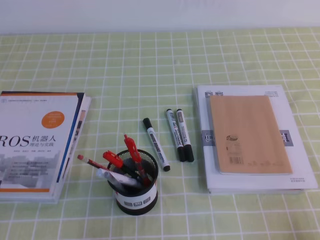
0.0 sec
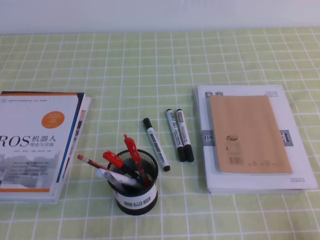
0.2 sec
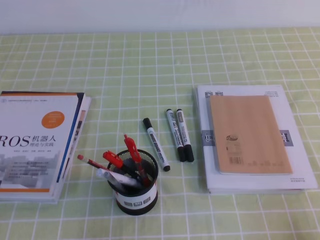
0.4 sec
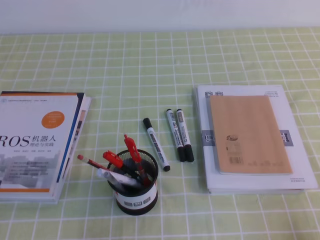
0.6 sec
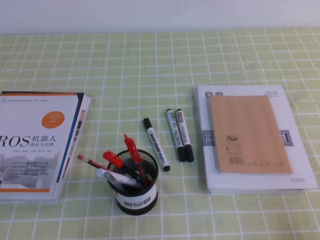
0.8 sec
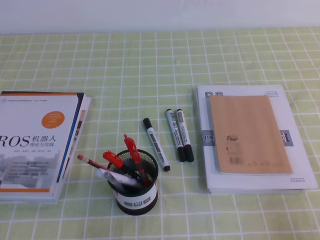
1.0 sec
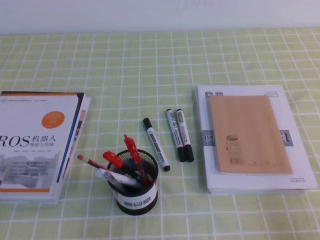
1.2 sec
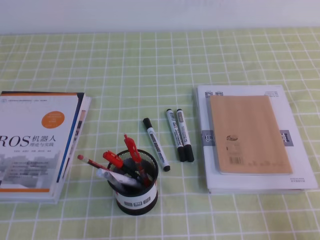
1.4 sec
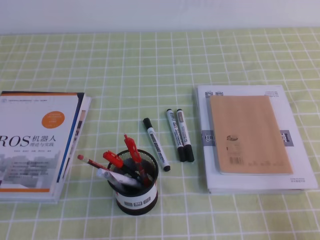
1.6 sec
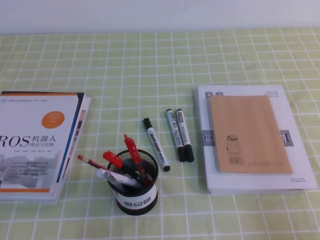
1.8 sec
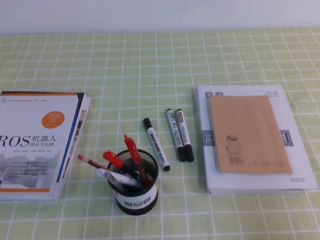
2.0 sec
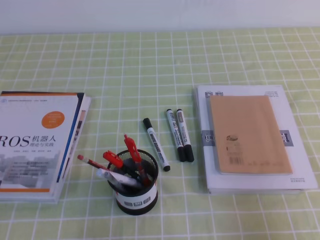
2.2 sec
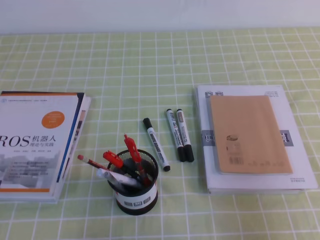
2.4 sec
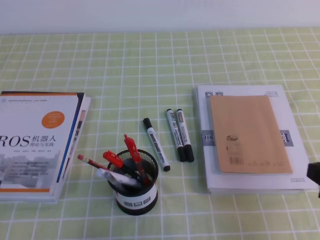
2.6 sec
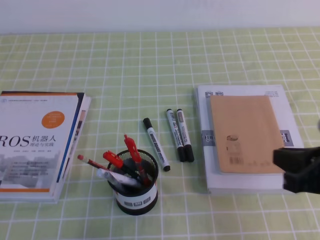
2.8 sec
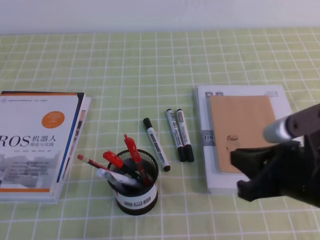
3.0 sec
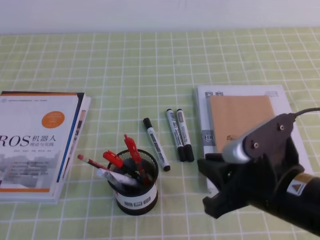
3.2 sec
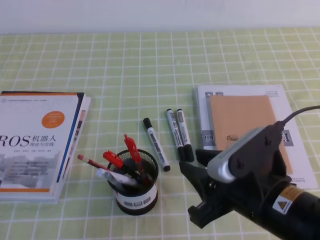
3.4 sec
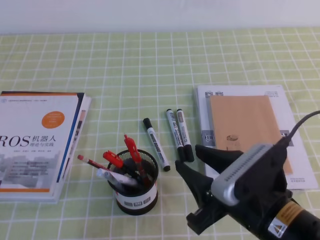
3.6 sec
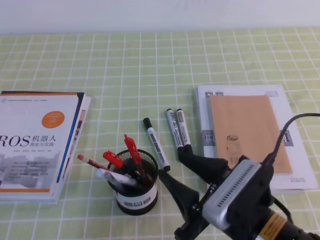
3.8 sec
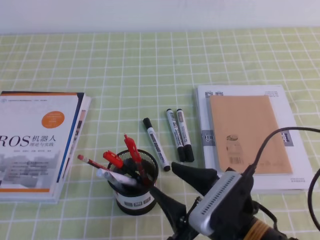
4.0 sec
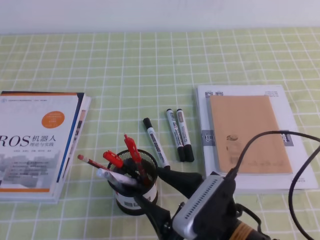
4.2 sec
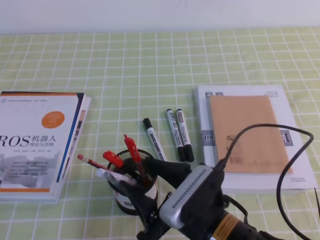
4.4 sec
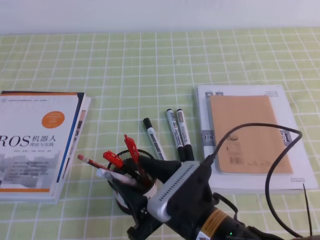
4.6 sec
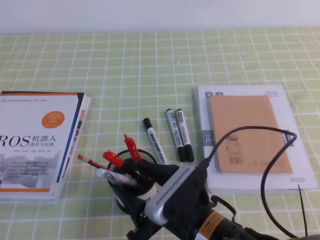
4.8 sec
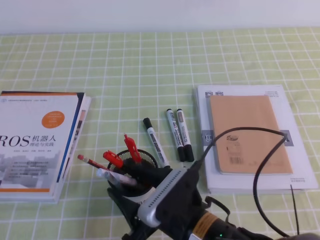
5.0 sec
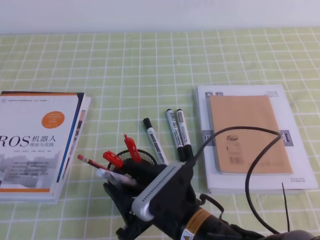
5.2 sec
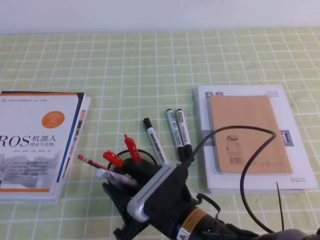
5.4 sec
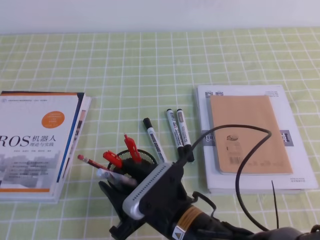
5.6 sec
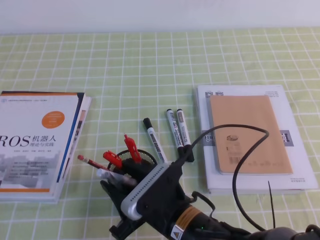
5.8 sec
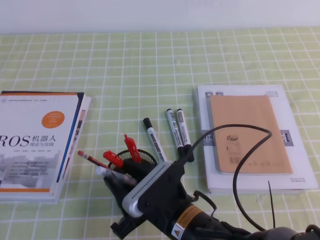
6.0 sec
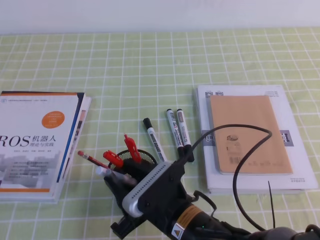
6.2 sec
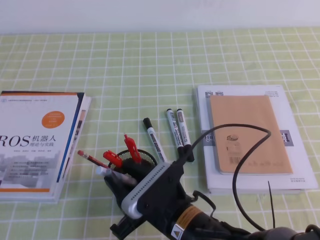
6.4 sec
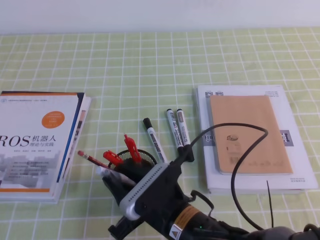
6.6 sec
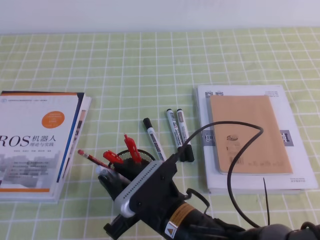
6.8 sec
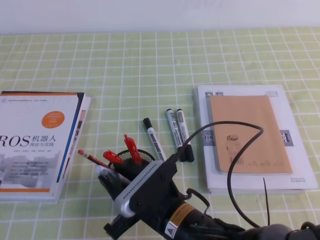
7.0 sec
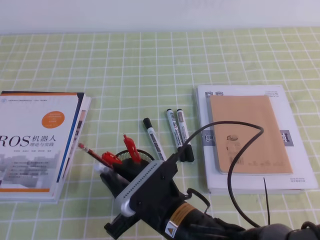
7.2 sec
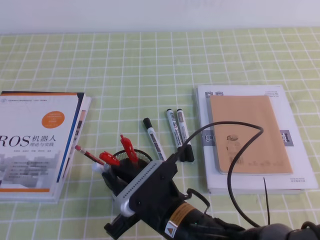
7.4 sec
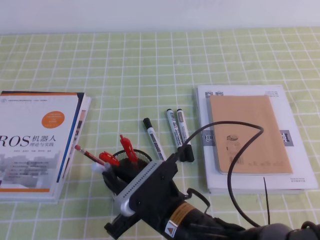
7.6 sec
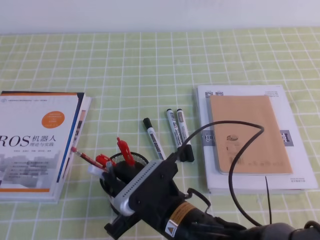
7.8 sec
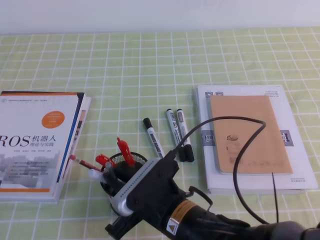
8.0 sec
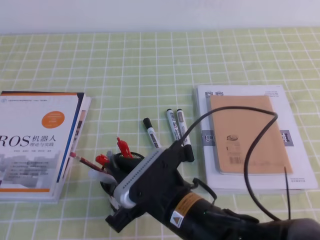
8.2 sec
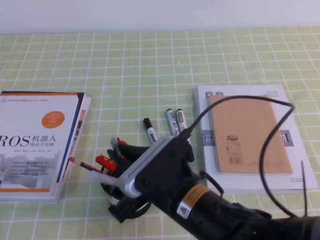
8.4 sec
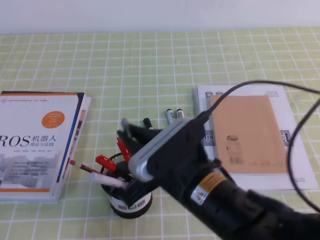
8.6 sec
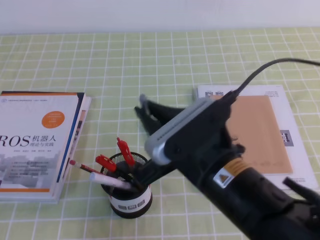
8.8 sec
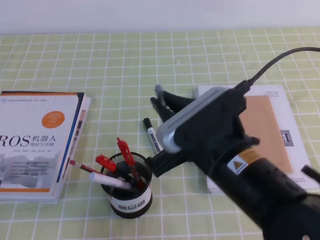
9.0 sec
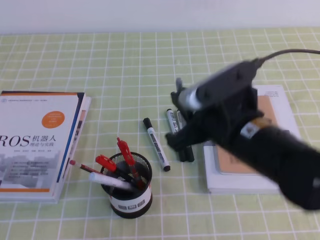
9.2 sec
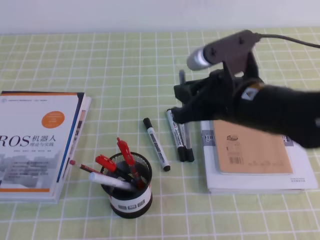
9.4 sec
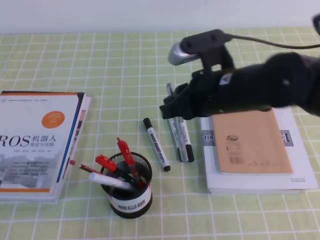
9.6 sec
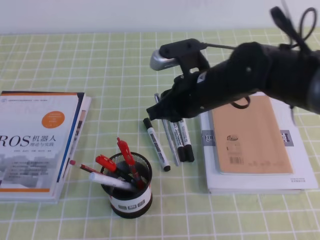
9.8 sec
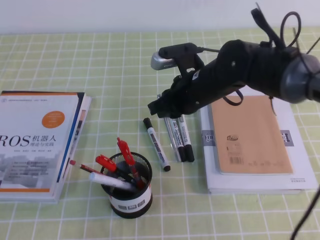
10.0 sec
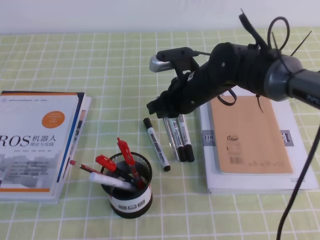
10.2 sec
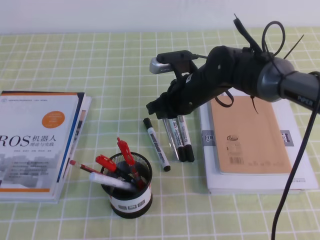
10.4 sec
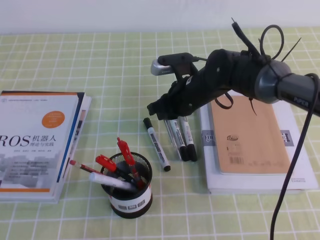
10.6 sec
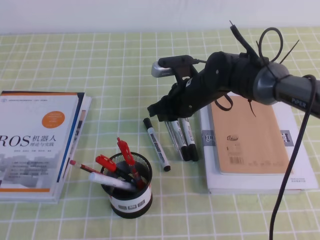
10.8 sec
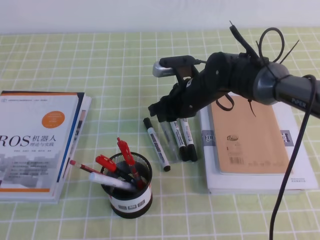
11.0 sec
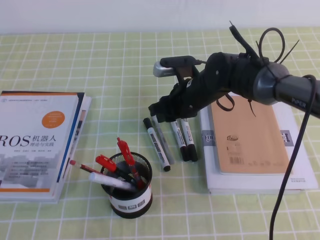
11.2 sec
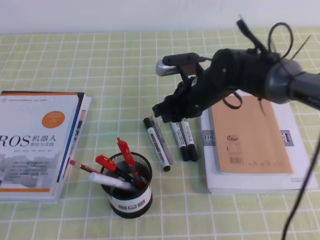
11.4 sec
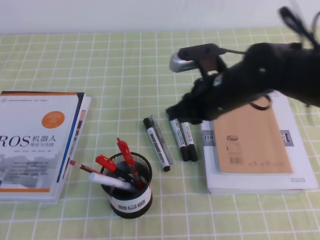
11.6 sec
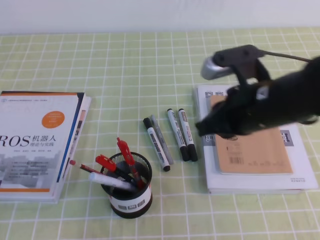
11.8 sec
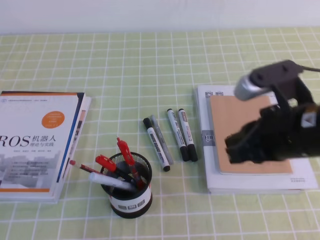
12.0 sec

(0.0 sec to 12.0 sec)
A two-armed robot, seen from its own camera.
1.6 sec - 3.0 sec: The right gripper heads to the left, forward and upward, covering some 20 cm.
3.0 sec - 4.4 sec: The right gripper is displaced to the left and downward by some 15 cm, and opens.
4.4 sec - 6.0 sec: The right gripper moves approximately 5 cm.
6.0 sec - 7.6 sec: The right gripper closes up.
7.6 sec - 9.0 sec: The right gripper shifts about 15 cm upward and to the right.
9.0 sec - 10.4 sec: The right gripper goes approximately 20 cm forward.
10.4 sec - 12.0 sec: The right gripper heads backward, to the right and upward, covering about 20 cm, and opens and closes again.

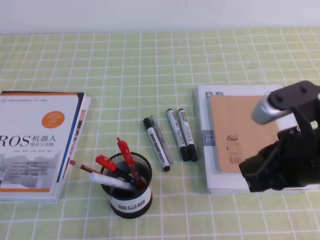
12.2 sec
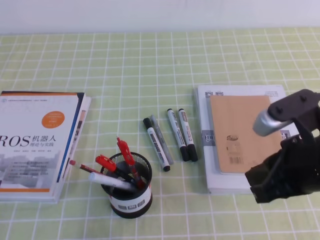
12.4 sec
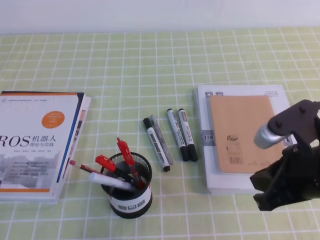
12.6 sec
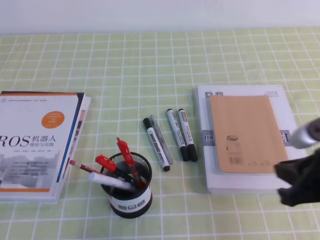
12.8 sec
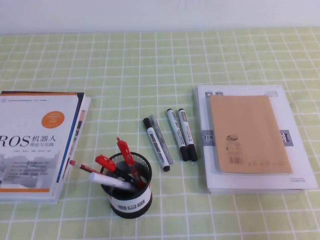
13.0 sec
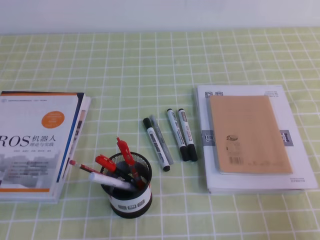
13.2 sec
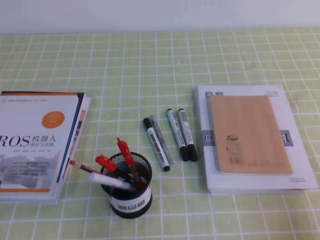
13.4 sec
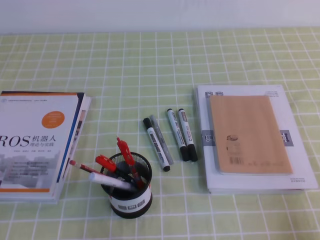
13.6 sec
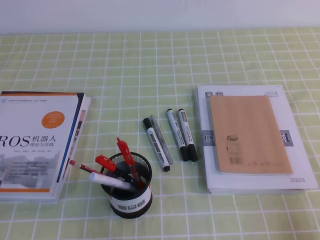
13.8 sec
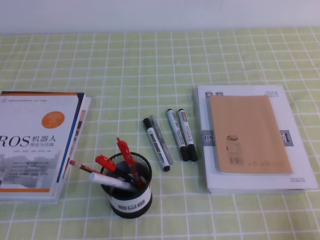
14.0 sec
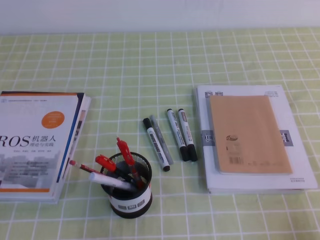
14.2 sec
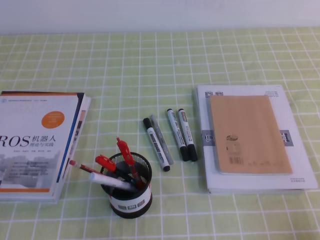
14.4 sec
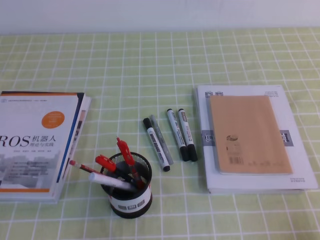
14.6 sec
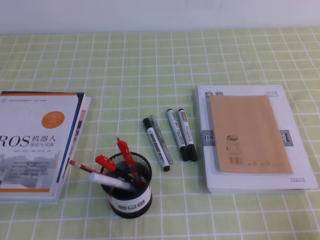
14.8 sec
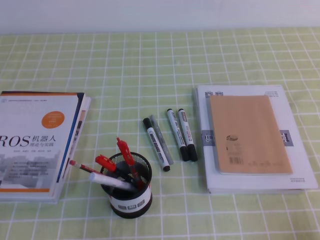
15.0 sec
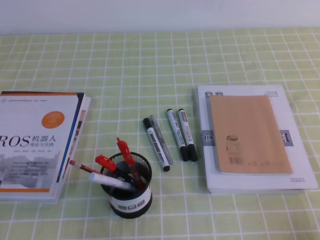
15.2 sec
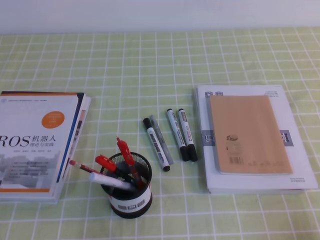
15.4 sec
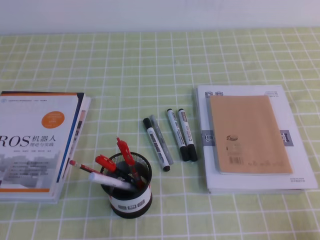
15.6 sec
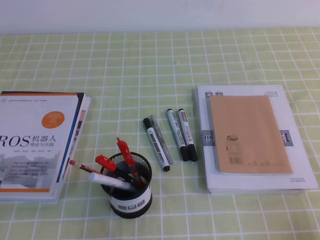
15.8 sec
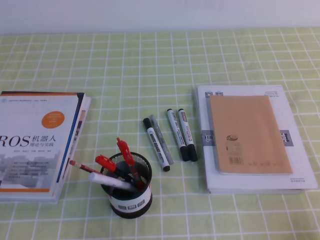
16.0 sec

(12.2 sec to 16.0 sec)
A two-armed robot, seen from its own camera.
Step, 12.2 sec - 16.0 sec: Pick up the pen from the pen holder.
12.2 sec - 13.4 sec: The right gripper moves to the right, backward and downward, some 20 cm.
14.8 sec - 16.0 sec: Both grippers stay put.

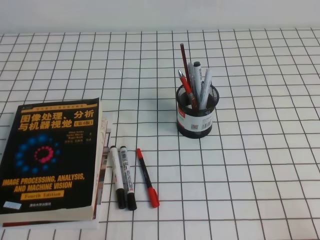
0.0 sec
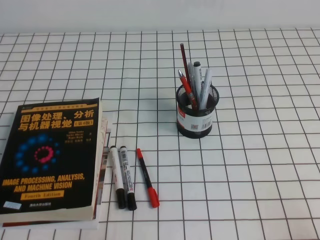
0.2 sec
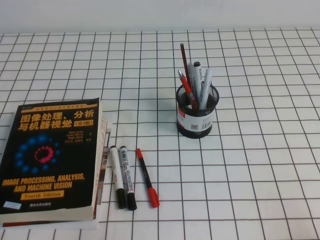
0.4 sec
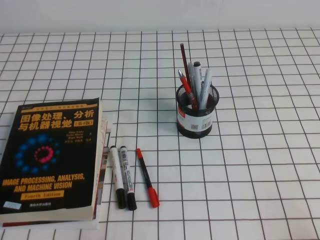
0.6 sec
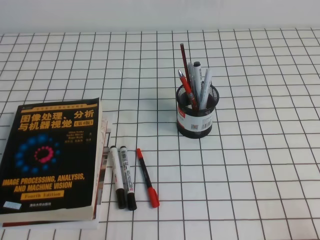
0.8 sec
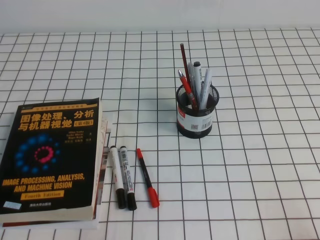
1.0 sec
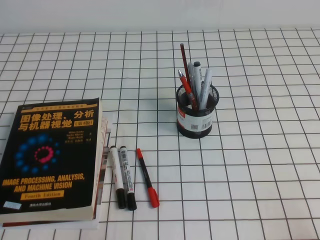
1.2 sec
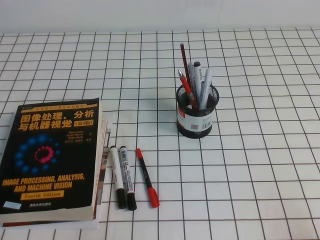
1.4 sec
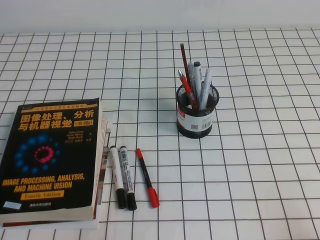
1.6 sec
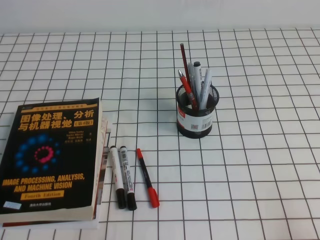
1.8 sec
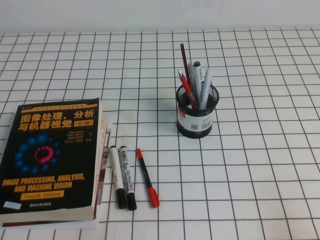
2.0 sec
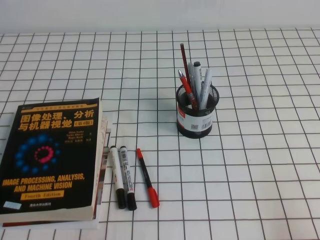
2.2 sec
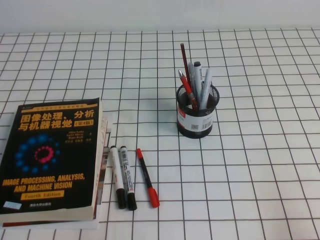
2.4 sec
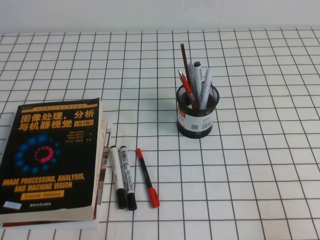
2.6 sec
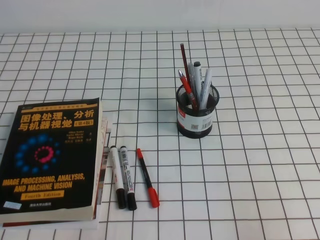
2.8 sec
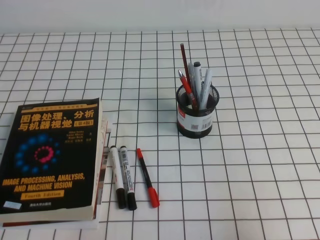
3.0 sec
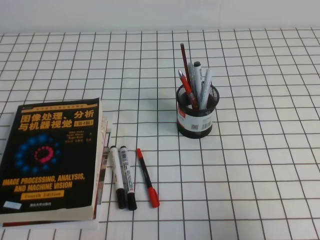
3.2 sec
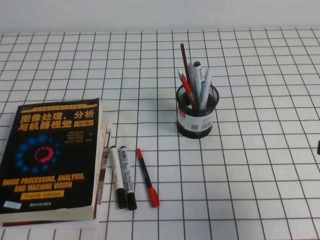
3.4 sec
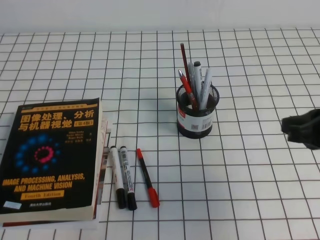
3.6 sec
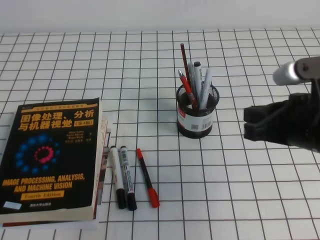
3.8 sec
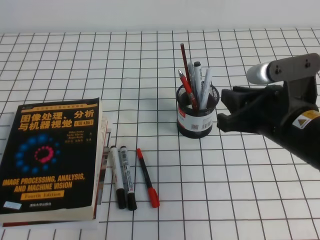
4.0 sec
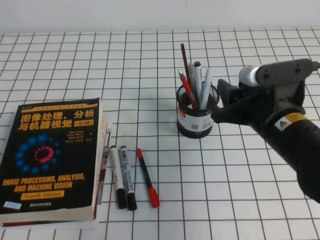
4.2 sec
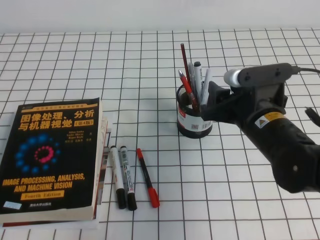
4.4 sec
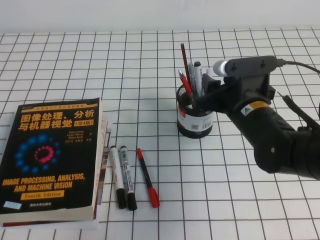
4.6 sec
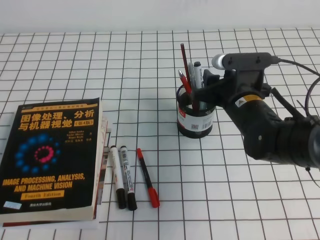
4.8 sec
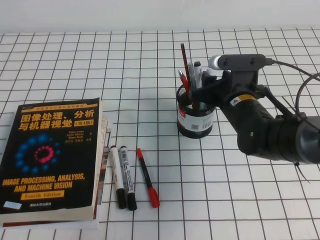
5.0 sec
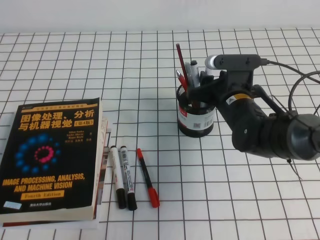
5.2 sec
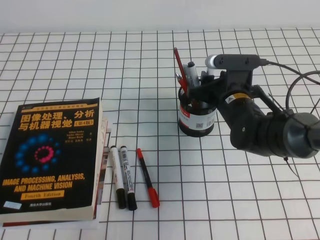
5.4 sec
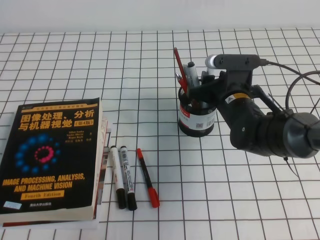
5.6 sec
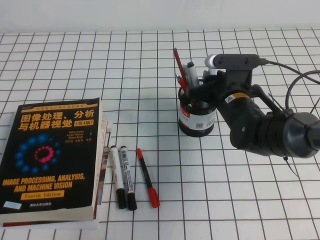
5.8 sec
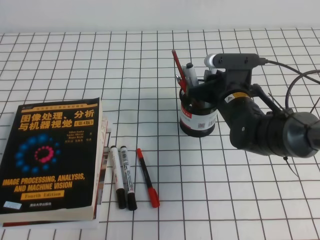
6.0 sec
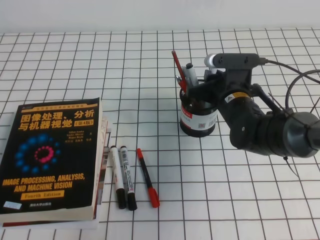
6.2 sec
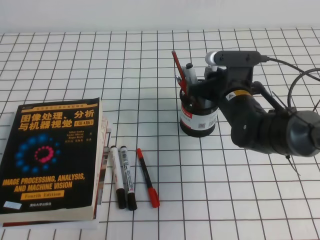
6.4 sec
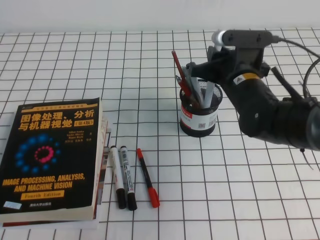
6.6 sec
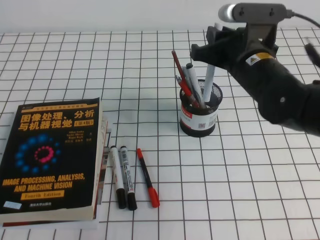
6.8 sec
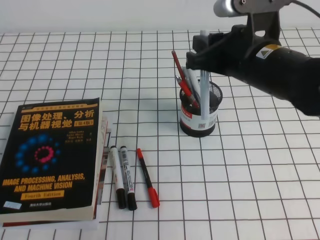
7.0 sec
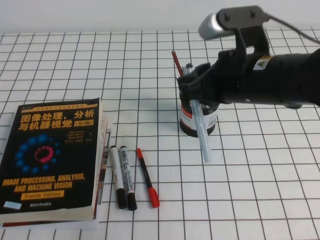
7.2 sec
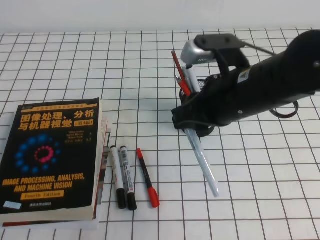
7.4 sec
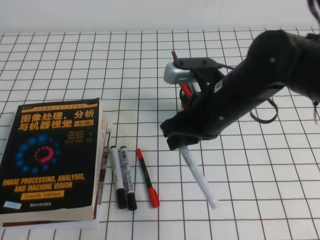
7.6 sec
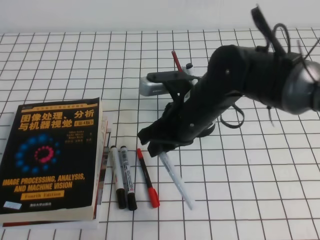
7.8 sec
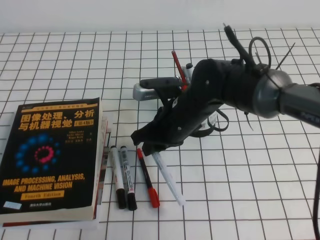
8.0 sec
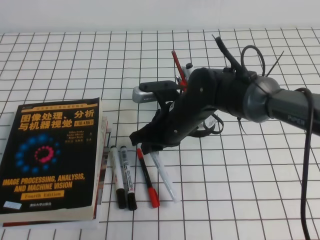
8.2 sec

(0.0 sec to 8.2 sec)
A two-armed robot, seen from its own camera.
0.0 sec - 1.6 sec: Both grippers stay about where they are.
1.6 sec - 3.2 sec: The right gripper is displaced upward and forward by roughly 15 cm.
3.2 sec - 5.0 sec: The right gripper is displaced forward and to the left by about 30 cm, and opens its fingers.
5.0 sec - 6.6 sec: The right gripper closes up.
6.6 sec - 8.2 sec: The right gripper is displaced to the left by about 10 cm, and reaches roughly 10 cm upward, then returns.
